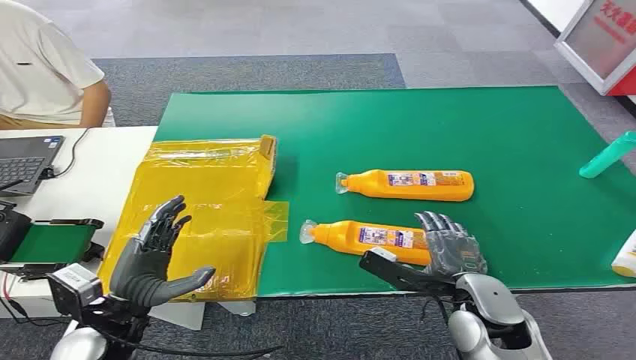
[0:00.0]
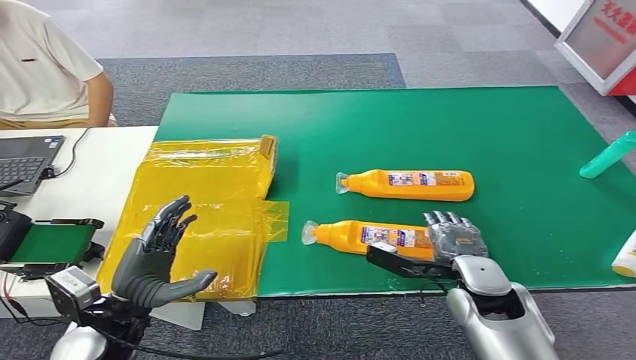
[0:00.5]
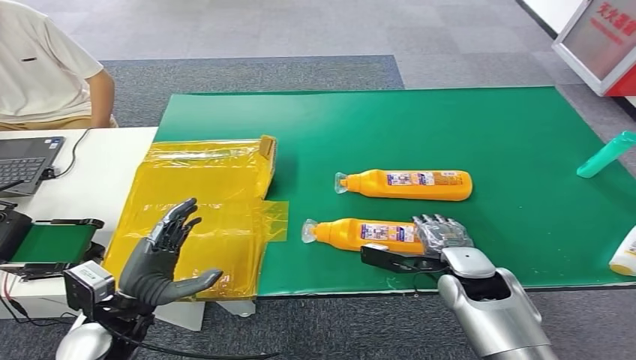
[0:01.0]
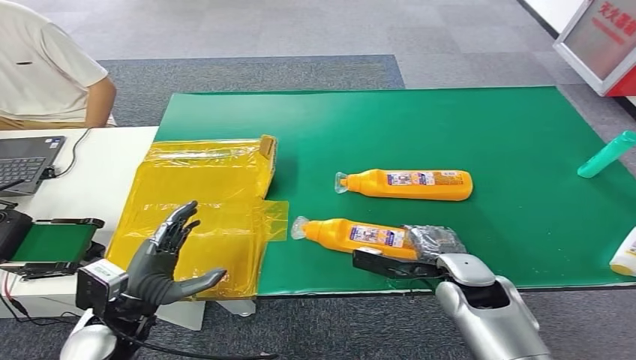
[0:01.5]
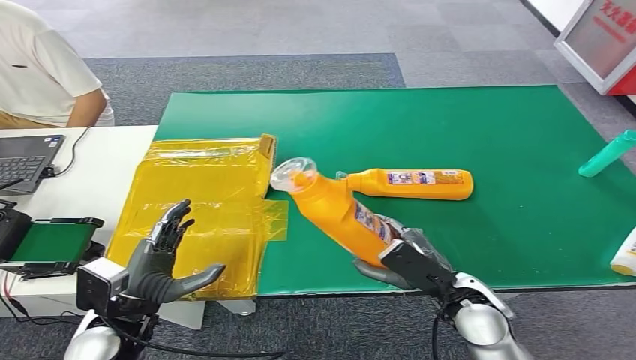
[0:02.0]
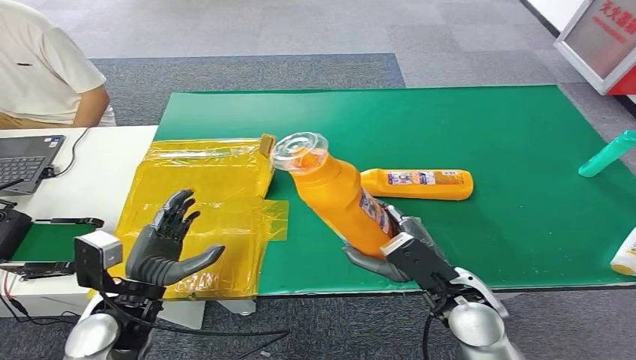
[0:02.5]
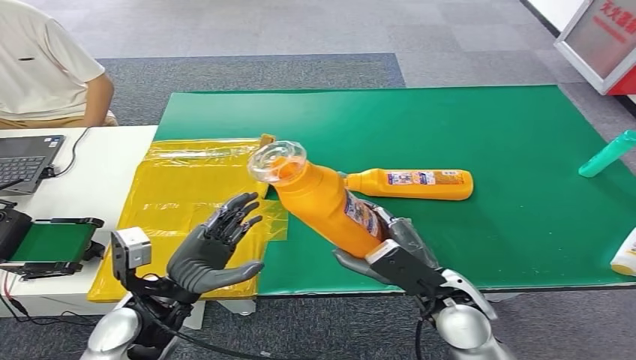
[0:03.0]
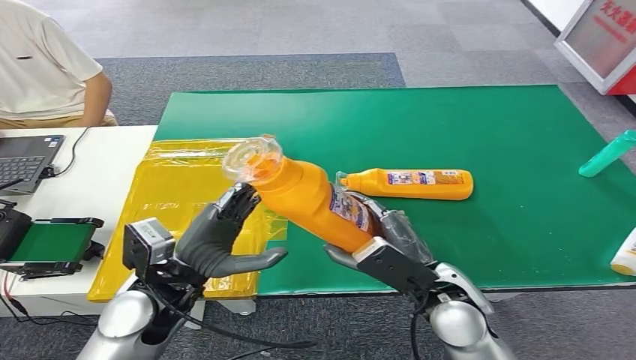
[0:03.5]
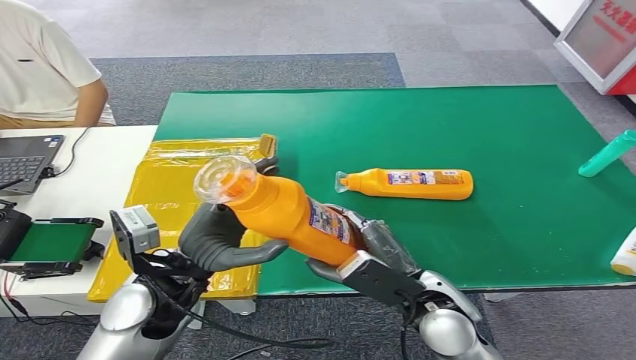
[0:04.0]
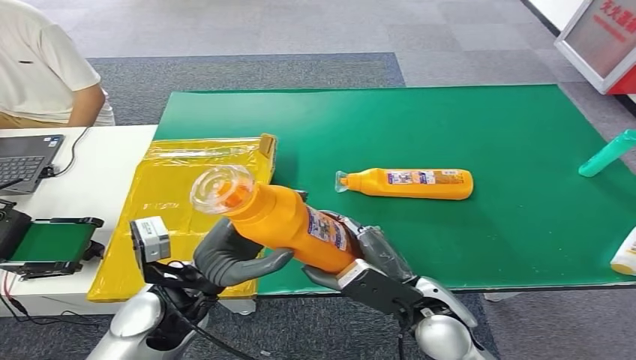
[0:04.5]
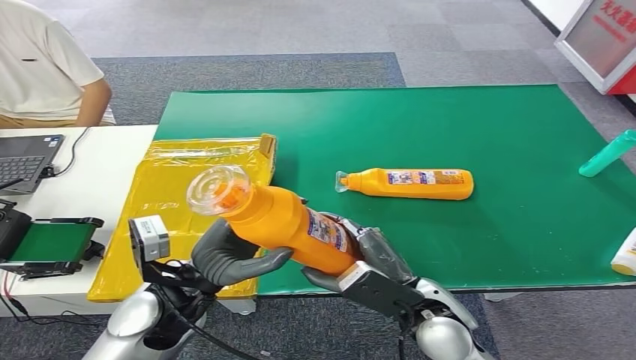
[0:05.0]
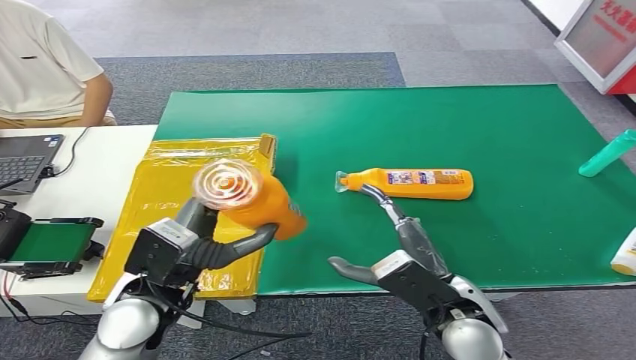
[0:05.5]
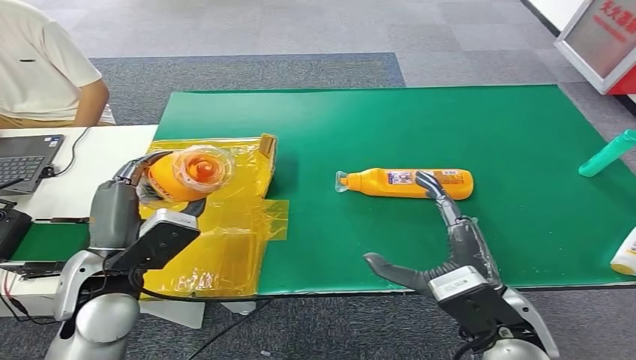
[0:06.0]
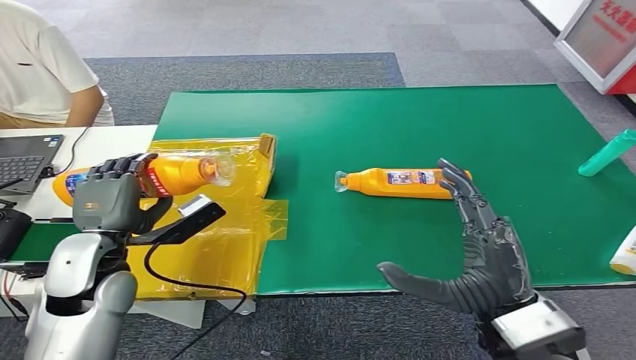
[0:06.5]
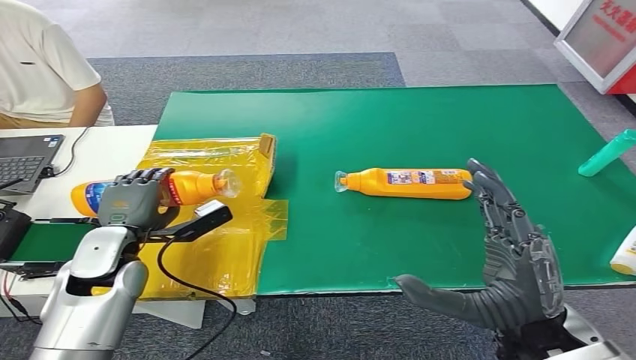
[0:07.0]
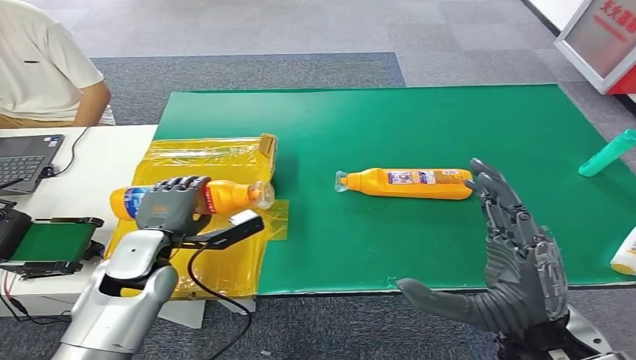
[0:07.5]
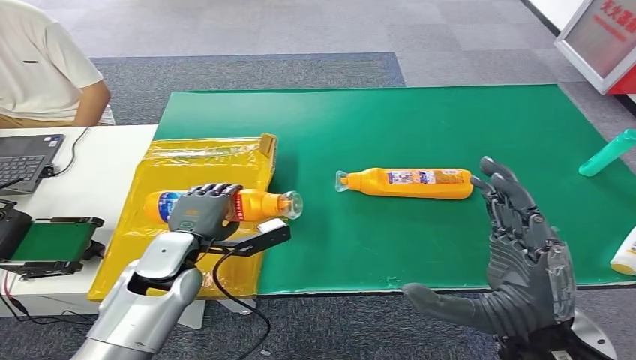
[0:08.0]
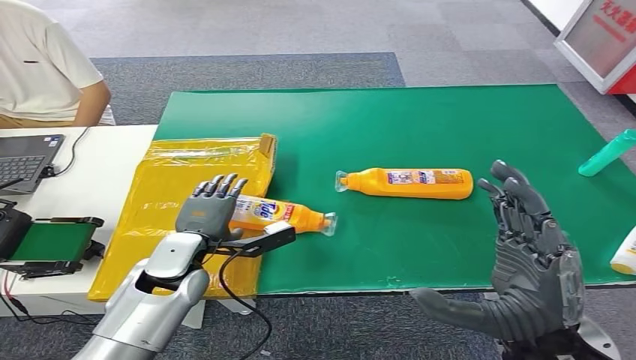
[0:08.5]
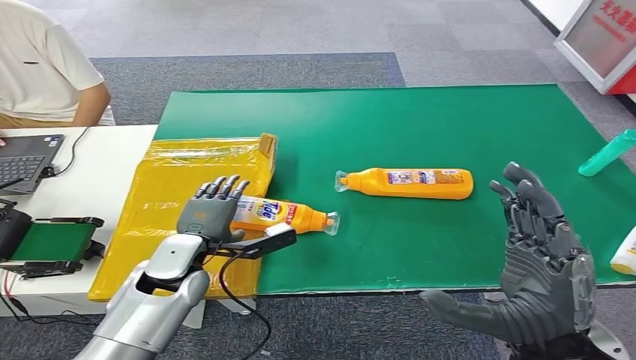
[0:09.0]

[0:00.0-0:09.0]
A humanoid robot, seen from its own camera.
Step, 0:00.0 to 0:02.0: Pick up the bottle from the table.
Step, 0:04.0 to 0:09.0: Turn the bottle to the front side.
0:02.0 to 0:04.5: The right hand goes some 5 cm to the left. Meanwhile the left hand goes about 10 cm to the right and upward.
0:07.0 to 0:09.0: The left hand goes about 10 cm to the right.

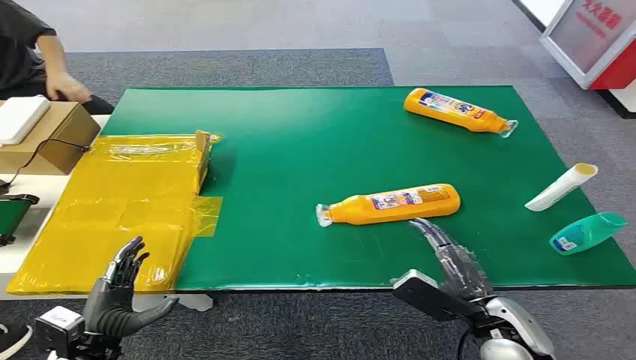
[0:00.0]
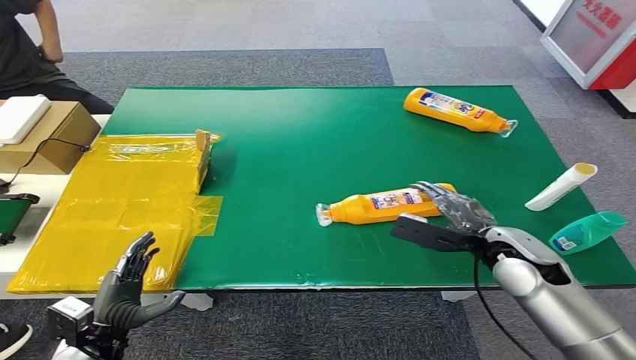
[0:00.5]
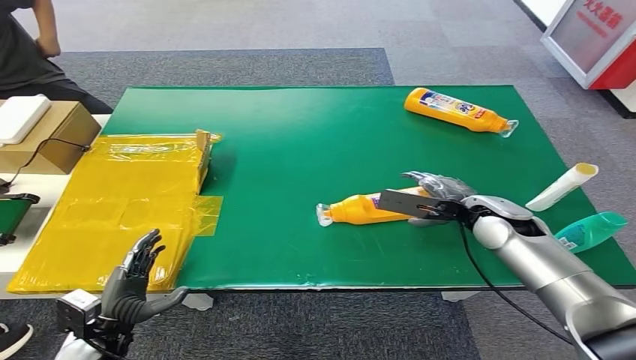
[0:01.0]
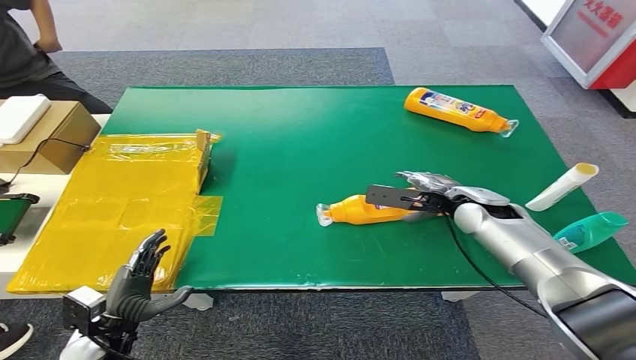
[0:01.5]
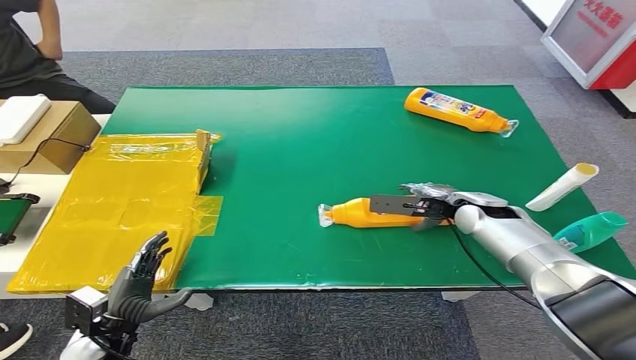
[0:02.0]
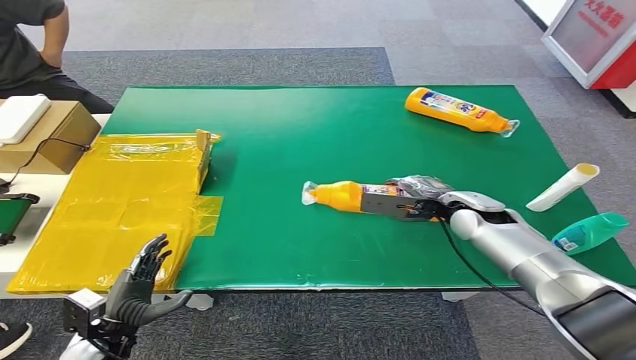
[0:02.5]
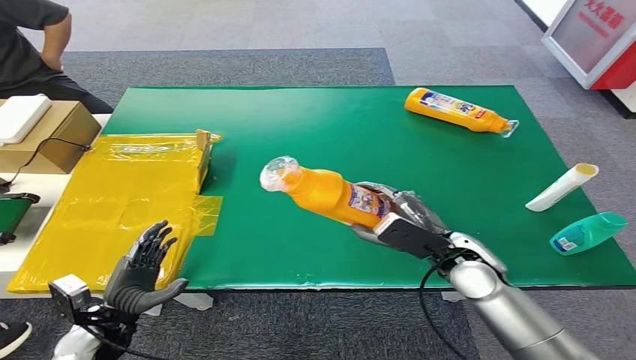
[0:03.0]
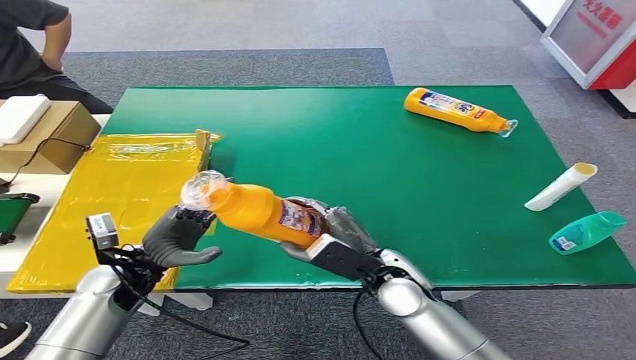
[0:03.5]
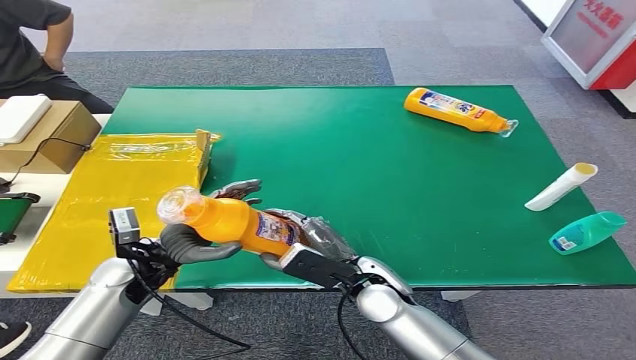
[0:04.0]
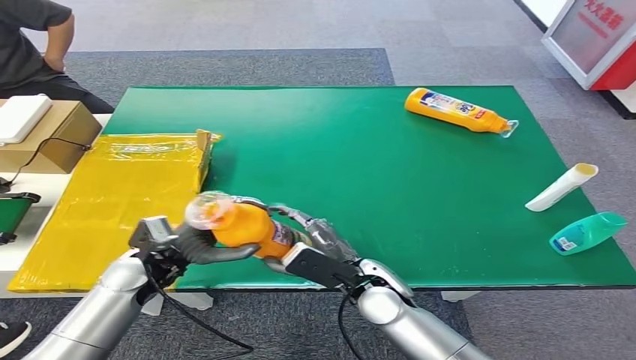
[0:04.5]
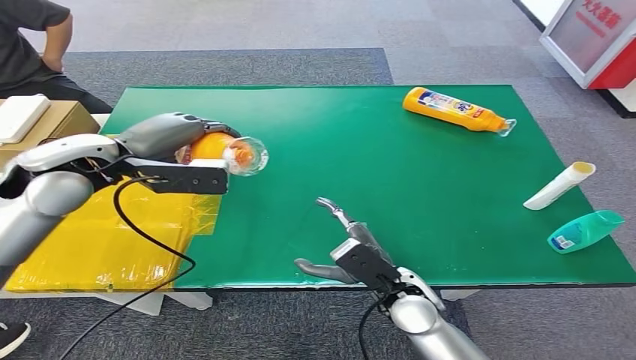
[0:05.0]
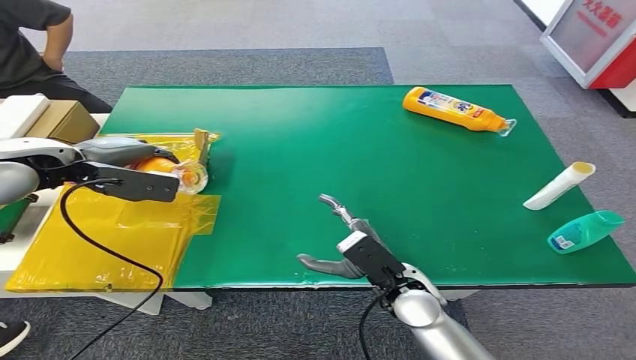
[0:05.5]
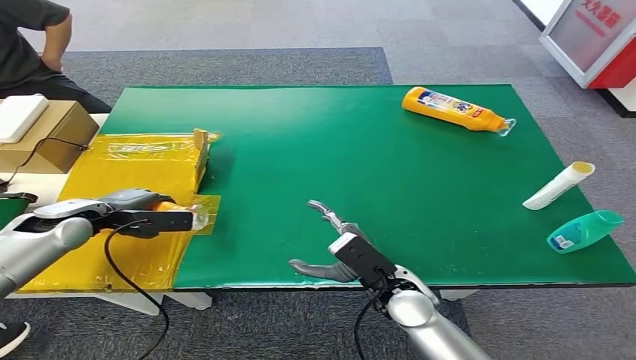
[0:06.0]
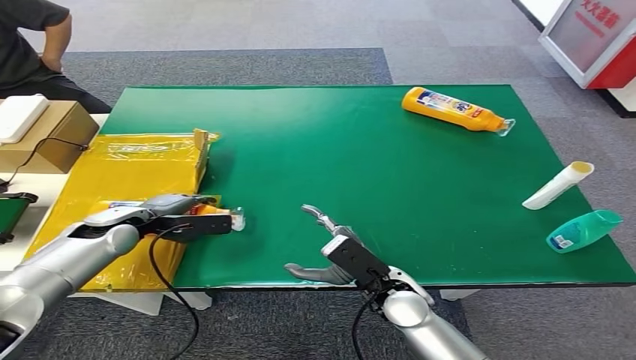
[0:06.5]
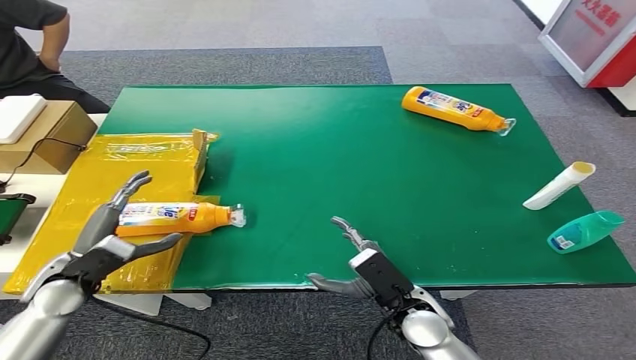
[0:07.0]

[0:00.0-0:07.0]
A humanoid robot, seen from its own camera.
Step, 0:00.0 to 0:02.5: Pick up the bottle from the table.
Step, 0:03.5 to 0:07.0: Turn the bottle to the front side.
